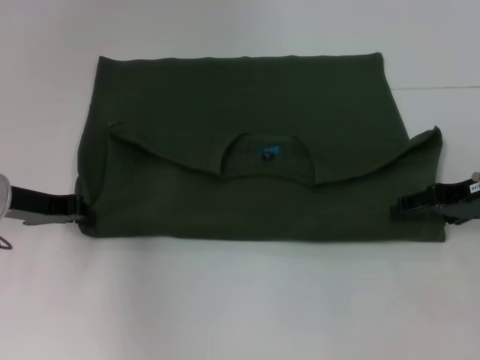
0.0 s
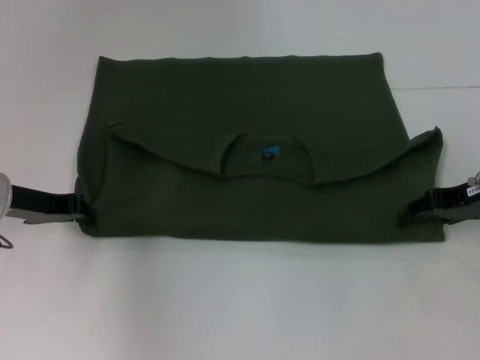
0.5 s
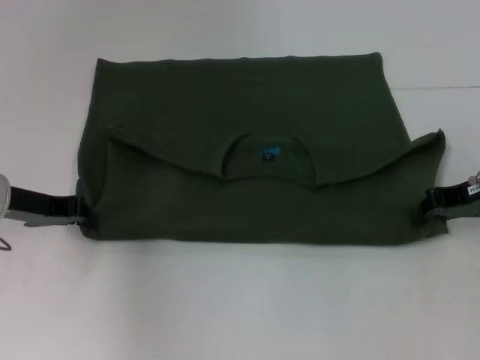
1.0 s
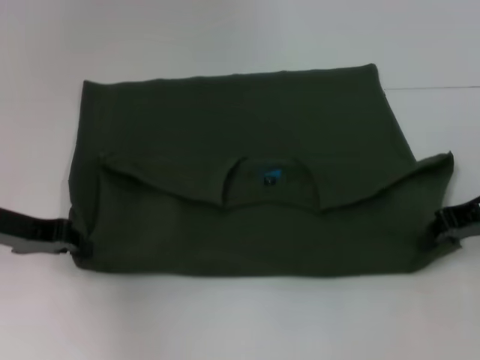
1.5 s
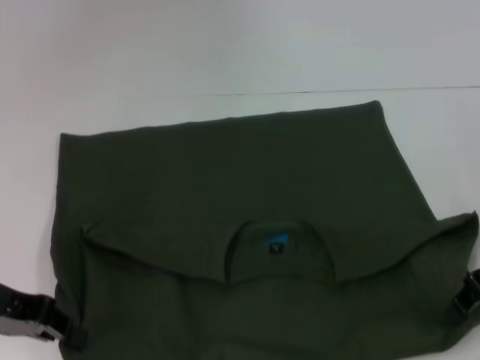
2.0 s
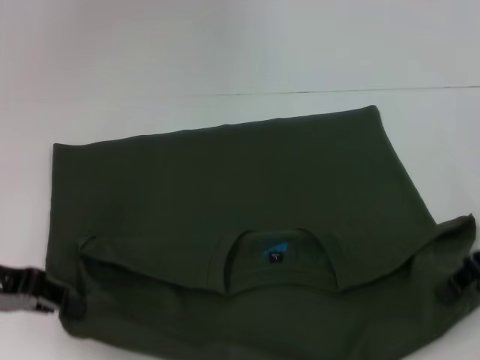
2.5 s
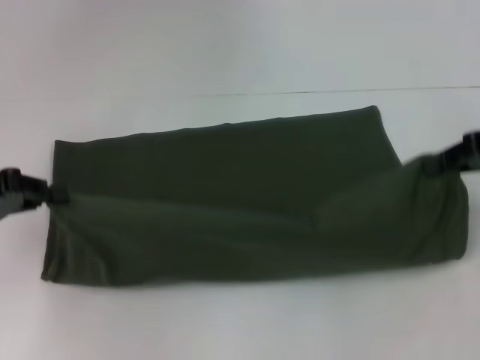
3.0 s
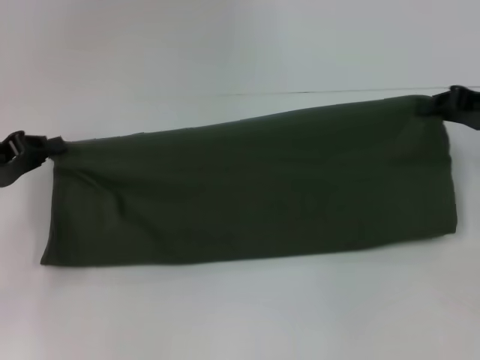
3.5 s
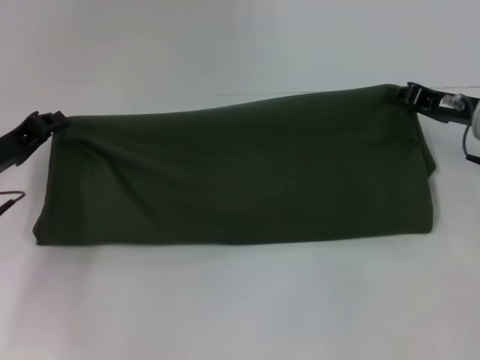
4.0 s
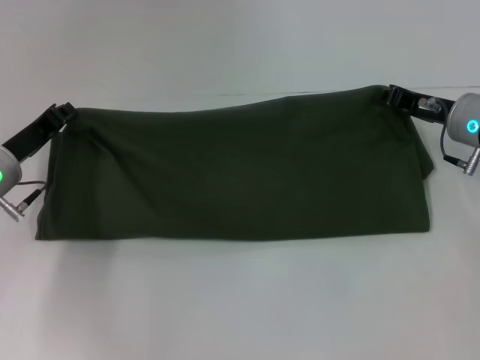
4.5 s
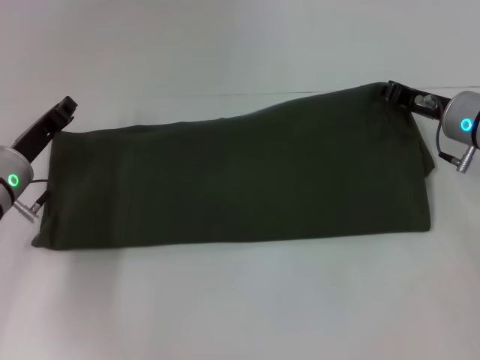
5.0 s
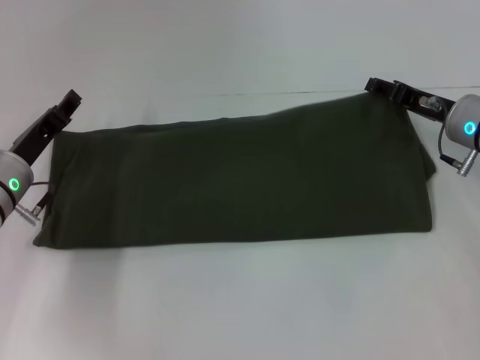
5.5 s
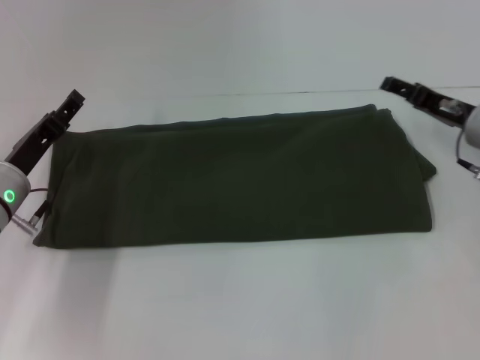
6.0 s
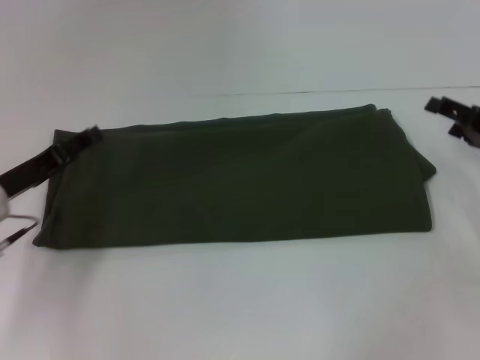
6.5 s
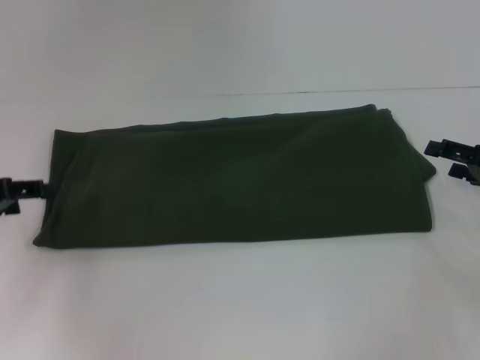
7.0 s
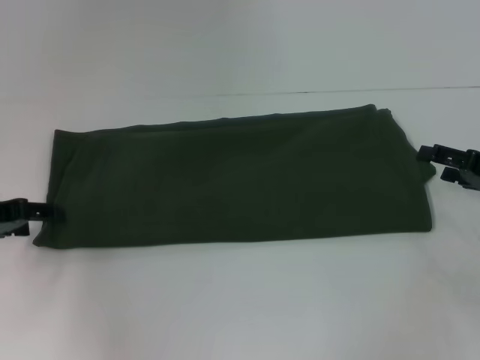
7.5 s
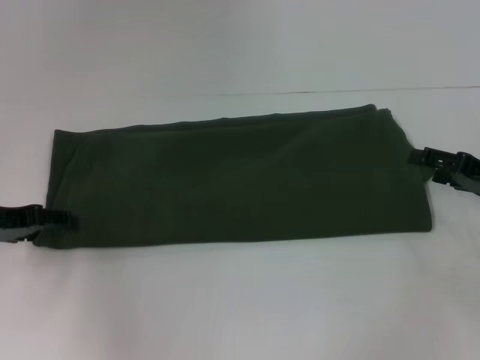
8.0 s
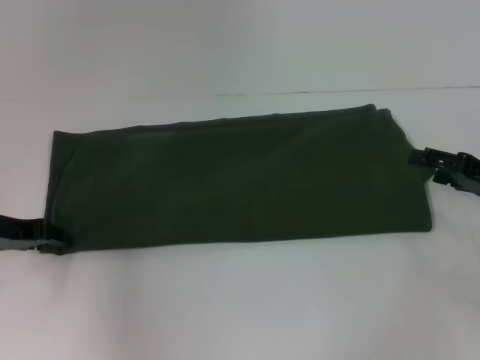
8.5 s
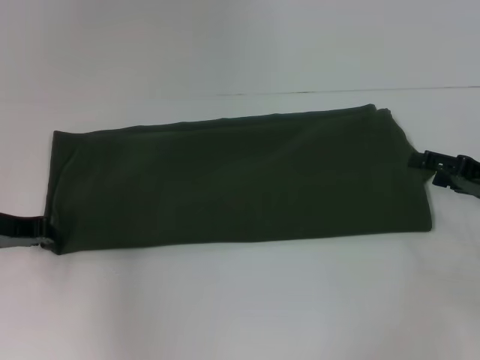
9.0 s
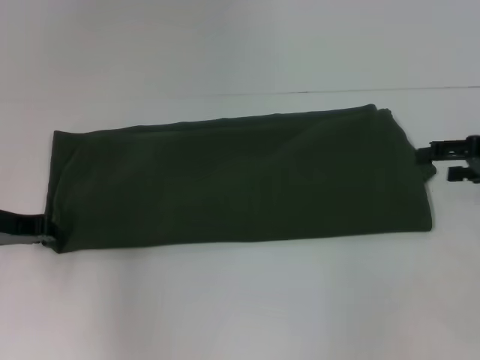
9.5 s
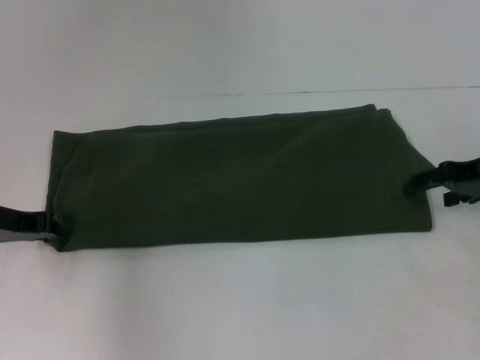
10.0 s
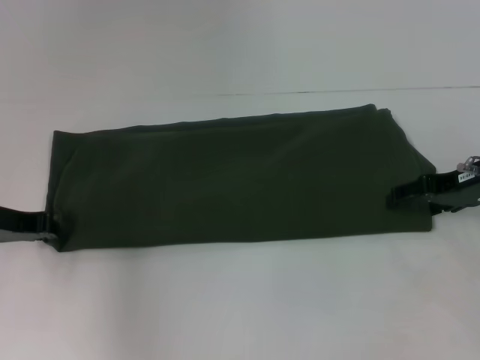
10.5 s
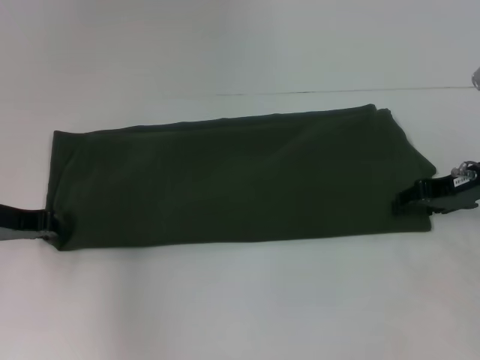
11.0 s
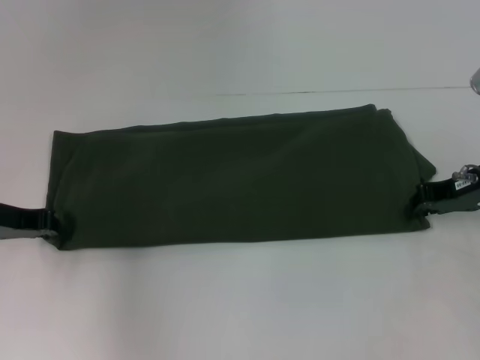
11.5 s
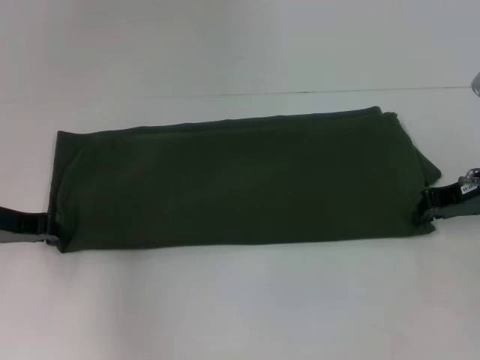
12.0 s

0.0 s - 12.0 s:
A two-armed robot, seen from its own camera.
Step, 0.0 s - 2.0 s: Pull the clothes with your left hand.
Step, 0.0 s - 2.0 s: Pull the clothes with your right hand.
Step, 2.5 s - 5.5 s: Fold the clothes with your right hand.
0.0 s - 2.0 s: The right gripper closes its fingers. The left gripper moves backward, some 10 cm.
2.0 s - 4.0 s: Both grippers travel together forward, some 5 cm.
4.0 s - 6.0 s: The right gripper opens its fingers; the left gripper changes place by about 5 cm, and opens up.
6.0 s - 8.0 s: The left gripper moves to the left and upward, roughly 10 cm. The right gripper heads backward and to the right, covering some 10 cm.
8.0 s - 10.0 s: The left gripper closes. The right gripper shifts approximately 5 cm upward.
10.0 s - 12.0 s: The right gripper closes its fingers.

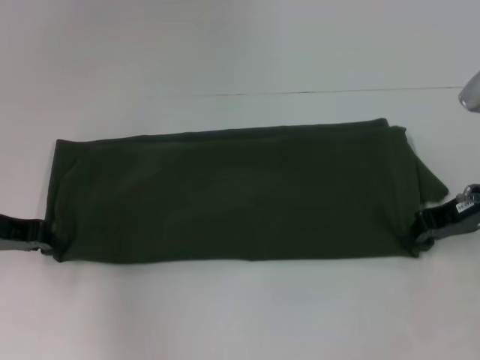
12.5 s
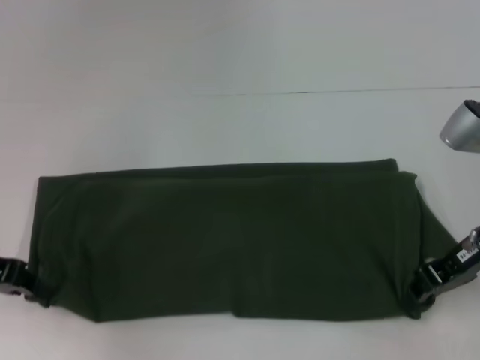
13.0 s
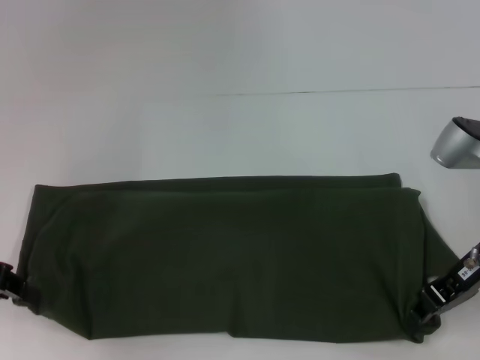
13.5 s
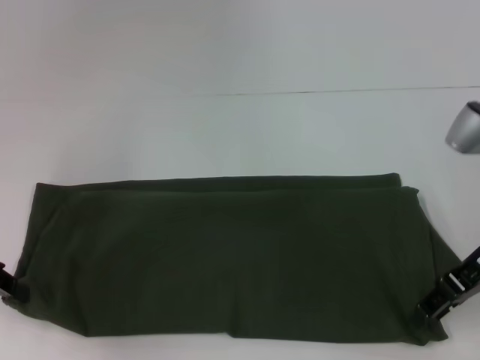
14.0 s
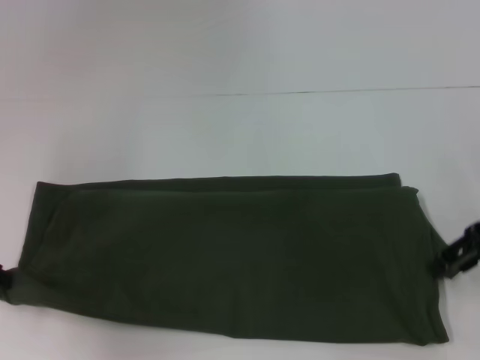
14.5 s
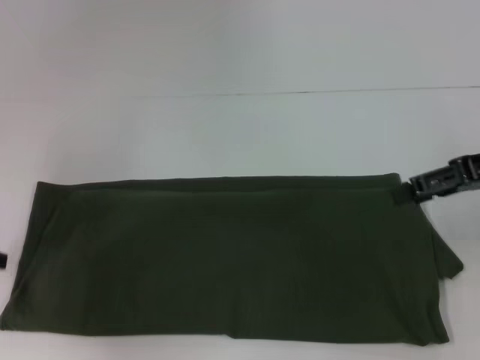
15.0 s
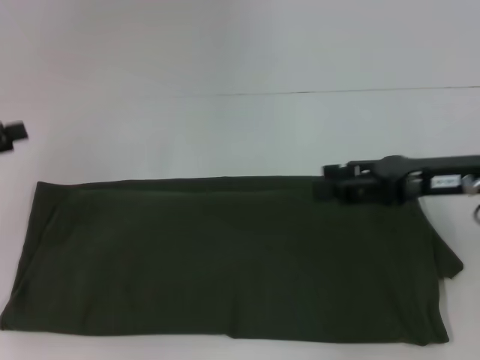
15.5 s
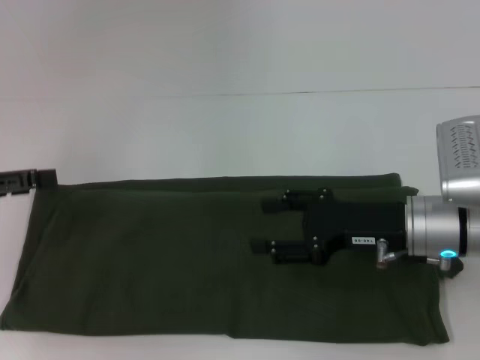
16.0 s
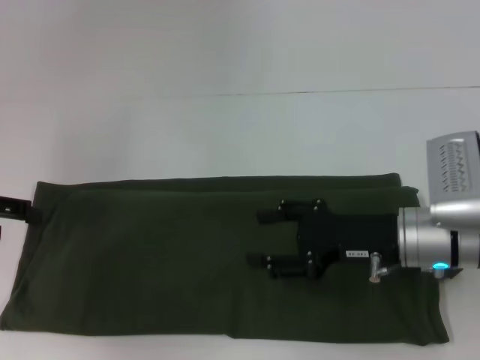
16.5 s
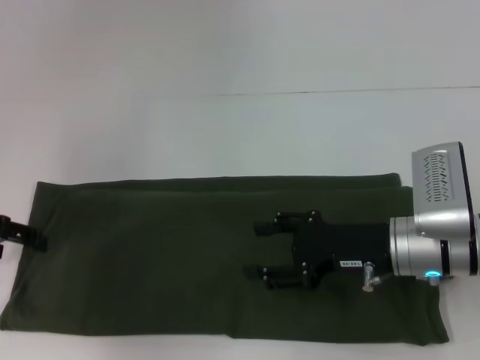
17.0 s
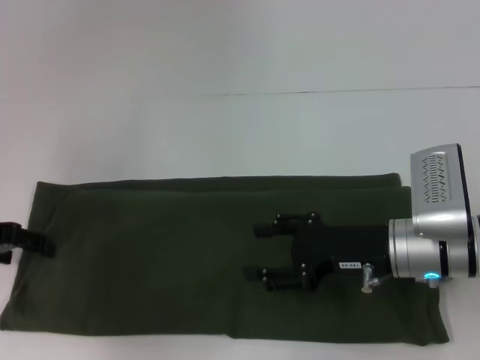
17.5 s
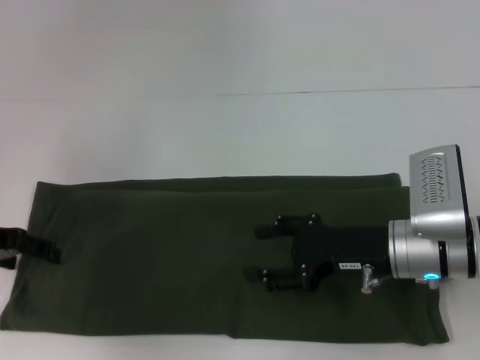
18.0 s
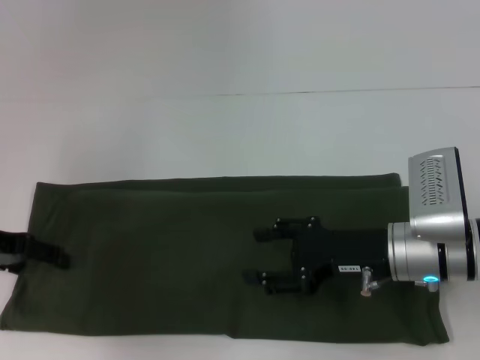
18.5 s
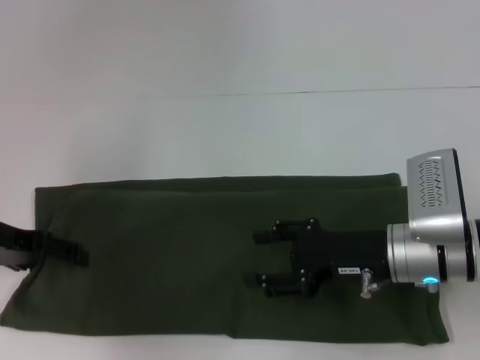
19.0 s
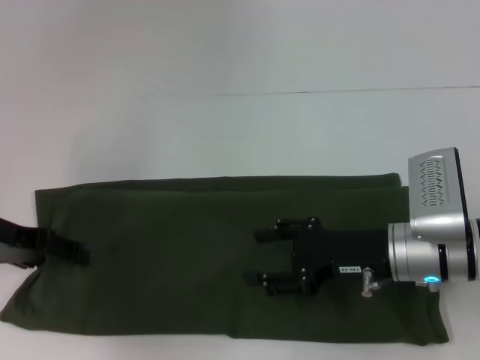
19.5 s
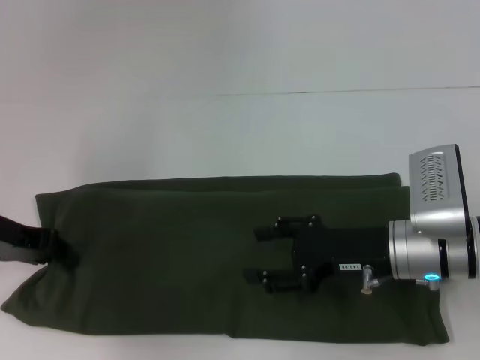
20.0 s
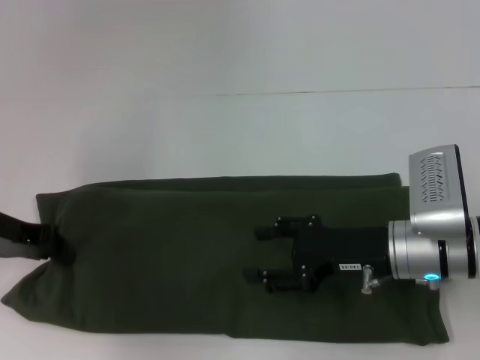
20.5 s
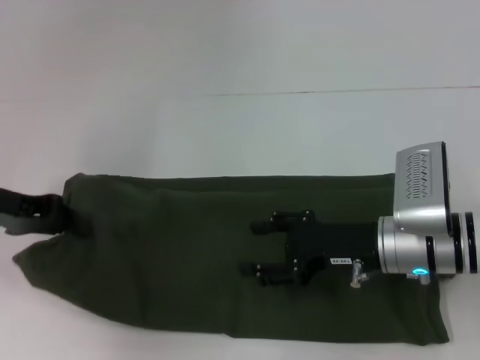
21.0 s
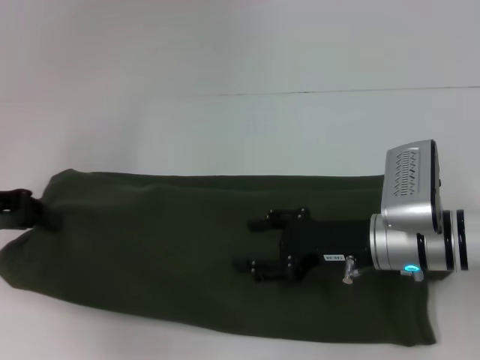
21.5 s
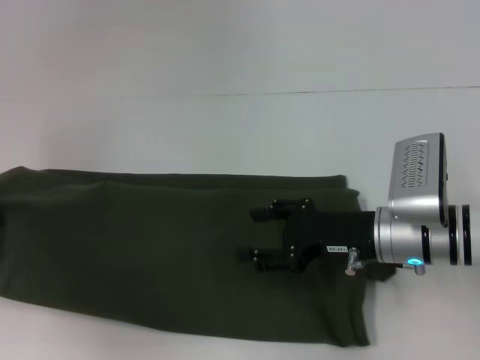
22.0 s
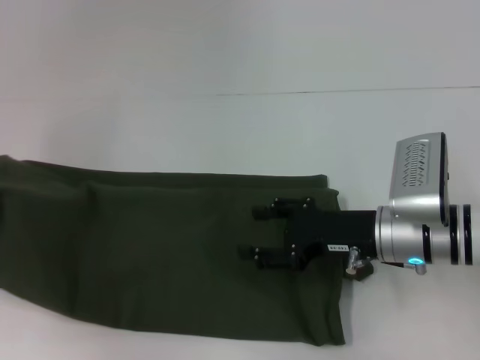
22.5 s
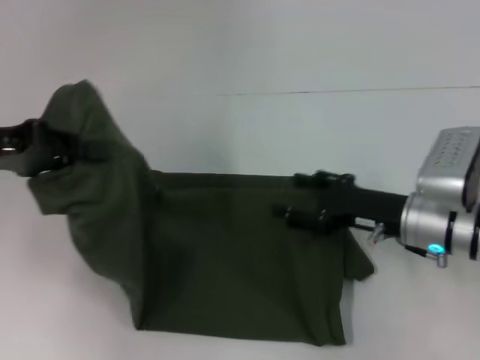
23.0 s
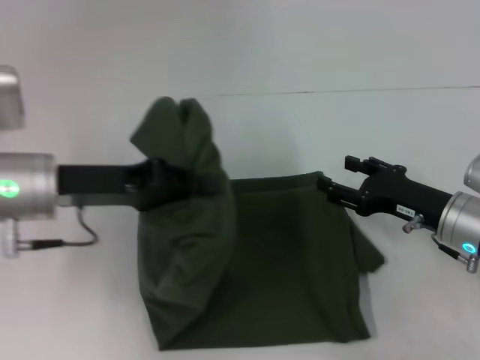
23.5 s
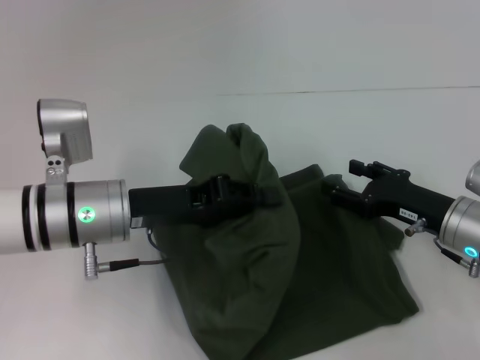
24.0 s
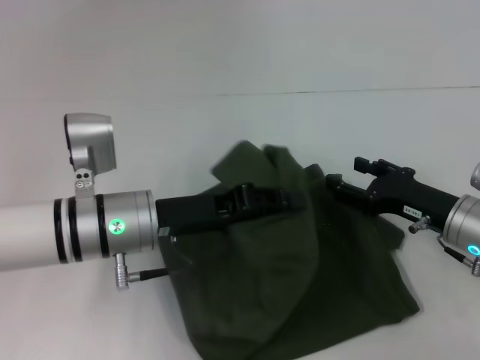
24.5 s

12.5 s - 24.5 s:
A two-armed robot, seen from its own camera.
12.5 s - 14.5 s: The right gripper is displaced upward by roughly 5 cm, and opens up. The left gripper shifts by some 5 cm.
14.5 s - 16.5 s: The right gripper travels to the left and downward by approximately 15 cm, while the left gripper opens up.
16.5 s - 18.5 s: The left gripper moves some 5 cm.
18.5 s - 20.5 s: The left gripper closes up.
20.5 s - 22.5 s: The left gripper shifts some 10 cm to the left and upward.
22.5 s - 24.5 s: The left gripper travels to the right by some 25 cm, while the right gripper goes about 10 cm to the right.

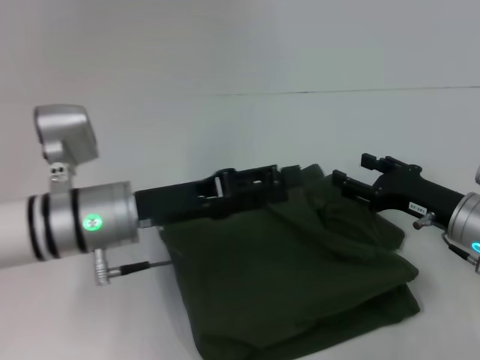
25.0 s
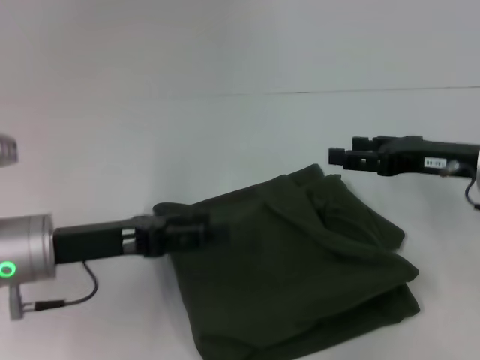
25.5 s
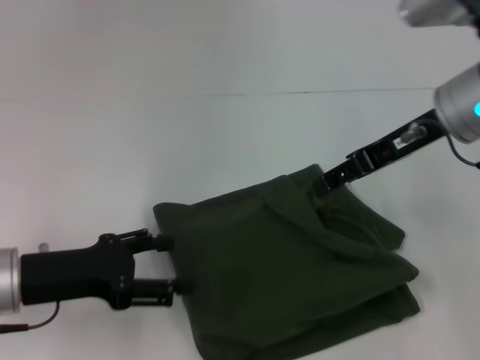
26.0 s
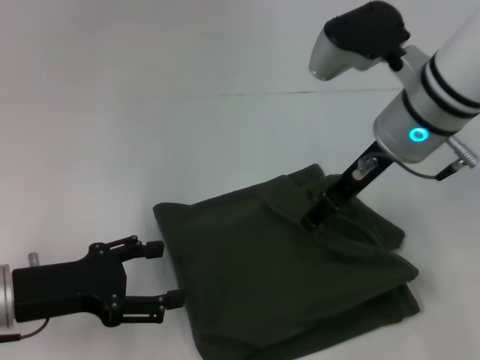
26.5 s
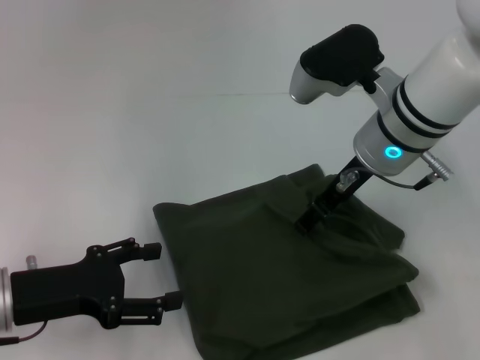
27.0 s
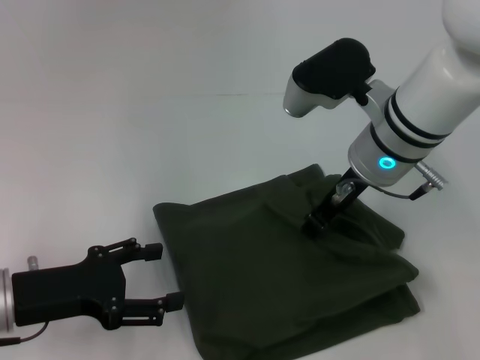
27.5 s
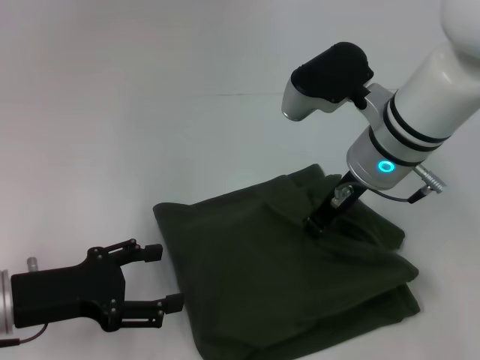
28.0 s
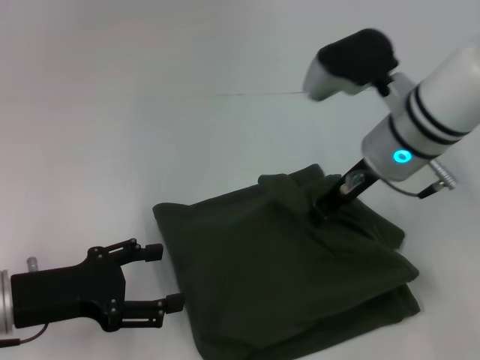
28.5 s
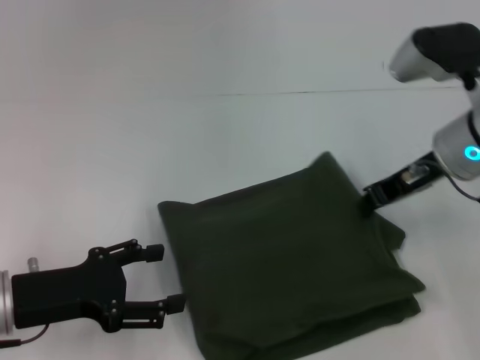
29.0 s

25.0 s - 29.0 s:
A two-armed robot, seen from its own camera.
25.0 s - 27.0 s: The left gripper moves to the left and backward, approximately 10 cm, while the right gripper goes about 20 cm upward, to the left and forward.
27.0 s - 29.0 s: The right gripper travels to the right by about 10 cm, and closes.
